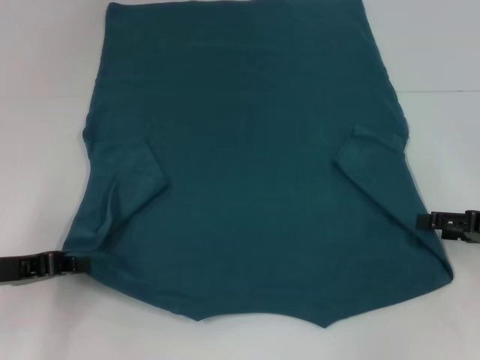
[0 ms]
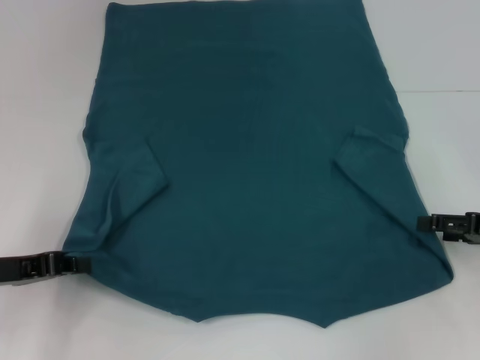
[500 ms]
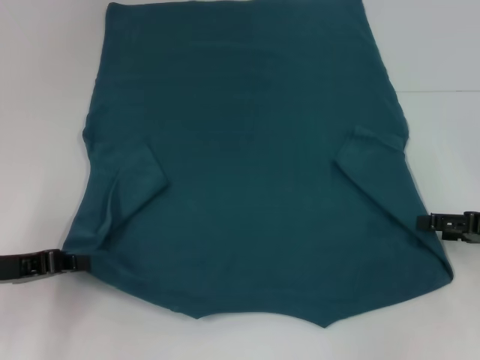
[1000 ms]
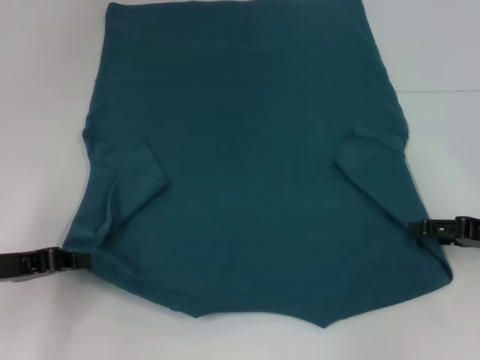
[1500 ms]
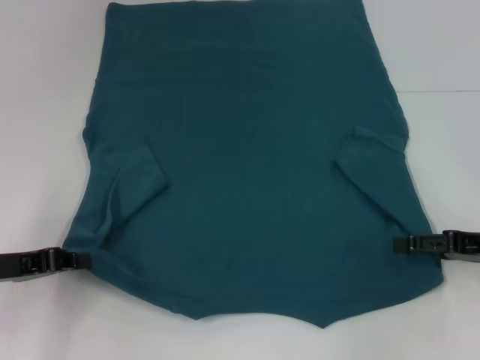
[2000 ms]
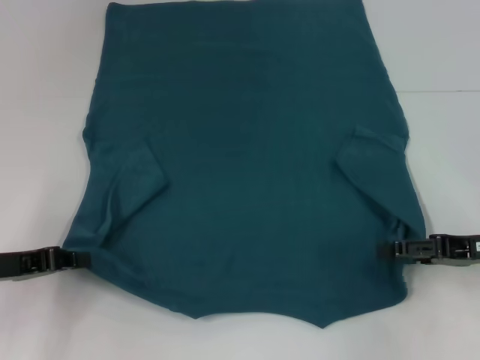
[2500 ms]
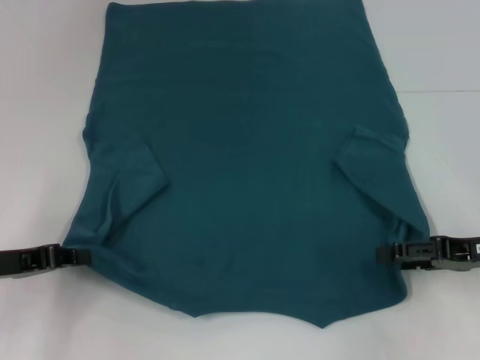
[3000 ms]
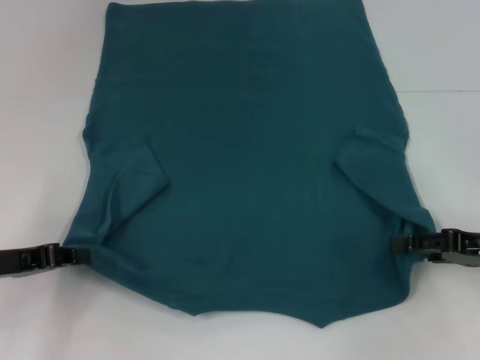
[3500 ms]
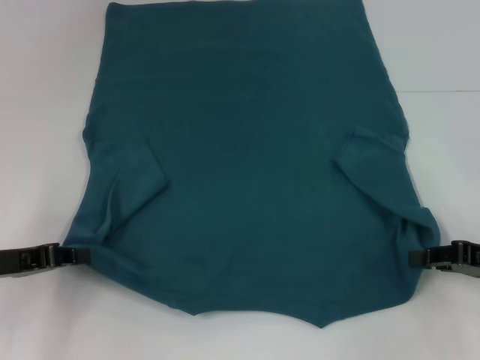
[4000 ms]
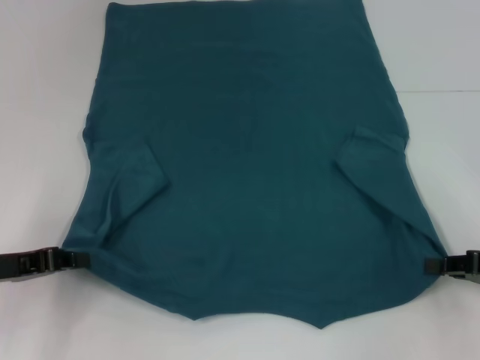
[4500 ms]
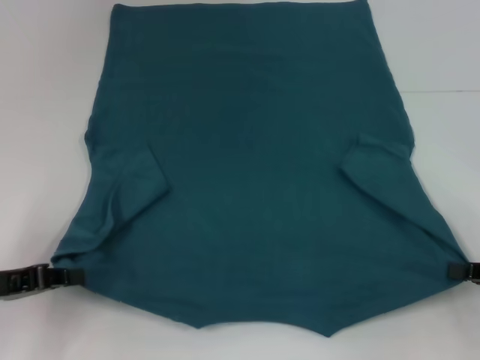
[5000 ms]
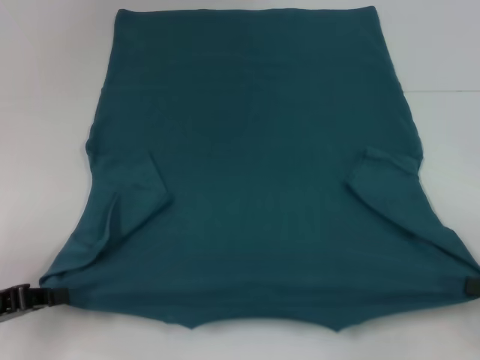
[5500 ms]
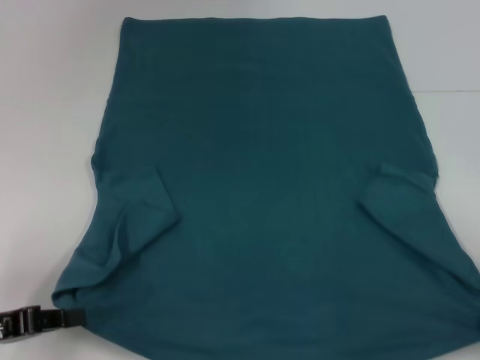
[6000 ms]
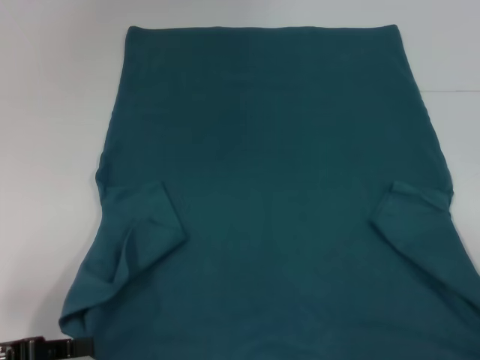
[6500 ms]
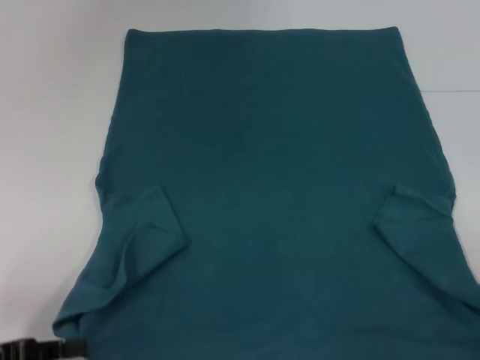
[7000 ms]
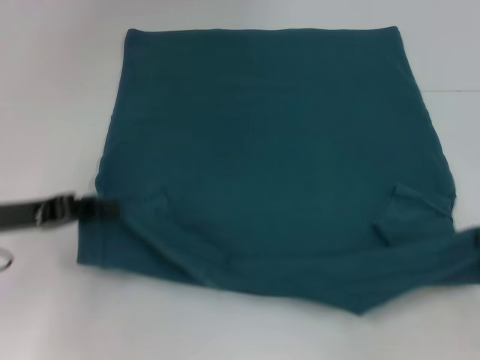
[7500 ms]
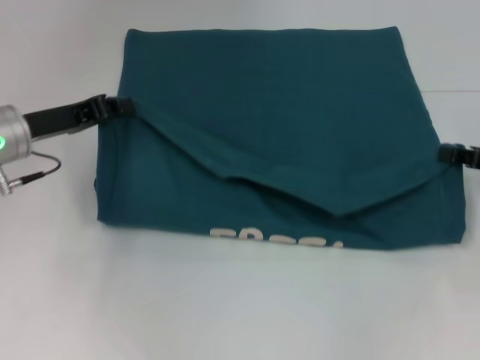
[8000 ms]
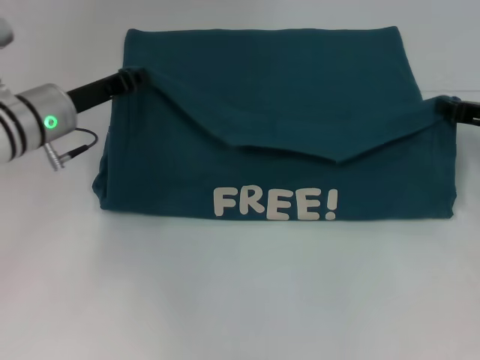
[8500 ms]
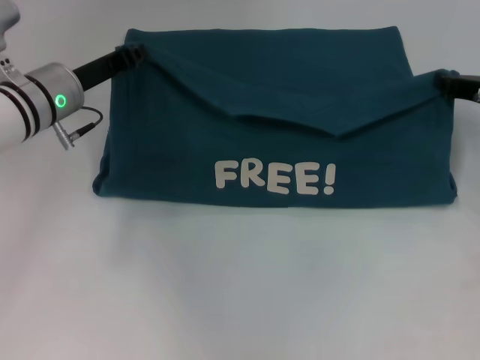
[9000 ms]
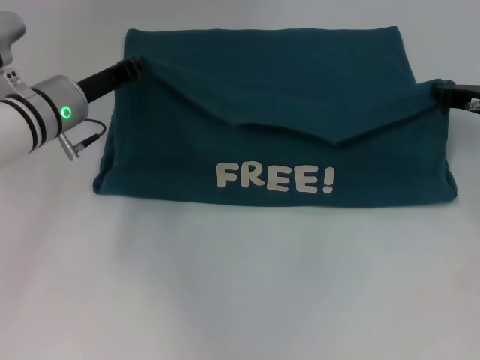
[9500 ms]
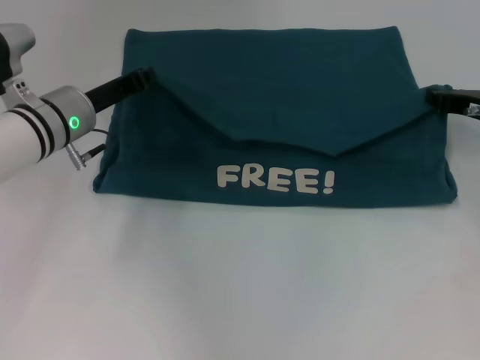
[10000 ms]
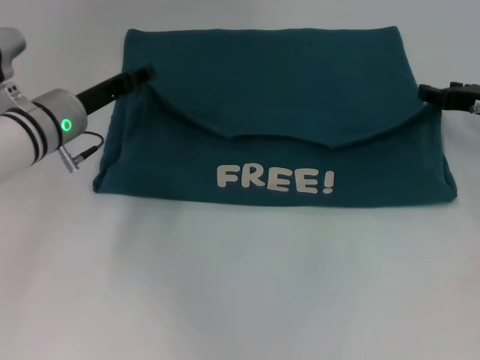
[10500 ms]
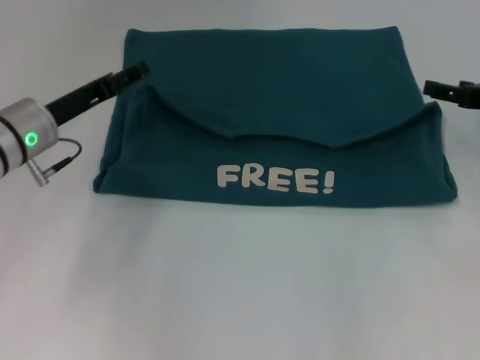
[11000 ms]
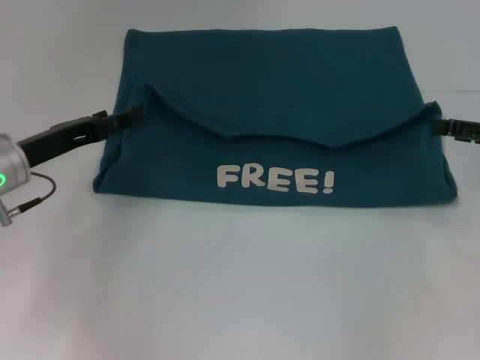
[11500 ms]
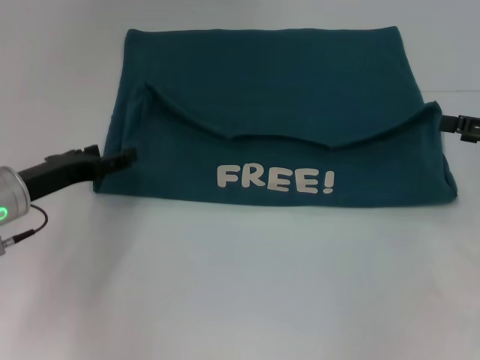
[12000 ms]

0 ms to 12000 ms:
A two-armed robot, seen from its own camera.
Step, 0 ms to 4000 ms: Grab the bottom right corner with your right hand.
Step, 4500 ms to 10500 ms: Fold the clothes to the left.
Step, 4500 ms to 10500 ms: Fold the clothes to the right.
0 ms to 2000 ms: There are only small adjustments of the grippers.
2000 ms to 4000 ms: The right gripper closes up.
4000 ms to 6000 ms: The left gripper moves backward, some 5 cm, while the right gripper heads backward and to the right, covering about 10 cm, and closes.
6000 ms to 8000 ms: The grippers both shift forward by about 15 cm.
8000 ms to 10000 ms: The right gripper shifts some 5 cm forward; the left gripper is displaced to the right by about 5 cm.
10000 ms to 12000 ms: The right gripper travels backward and to the right by roughly 10 cm, and opens up, while the left gripper is displaced backward and to the left by approximately 10 cm, and opens.

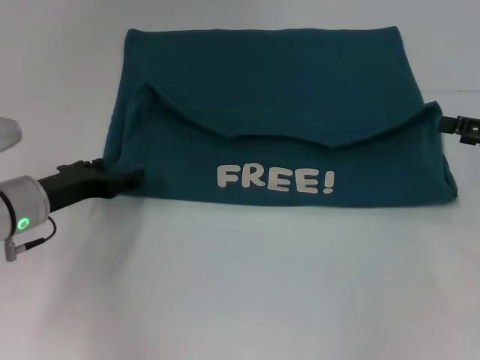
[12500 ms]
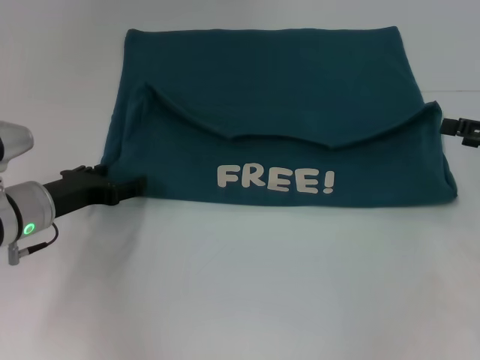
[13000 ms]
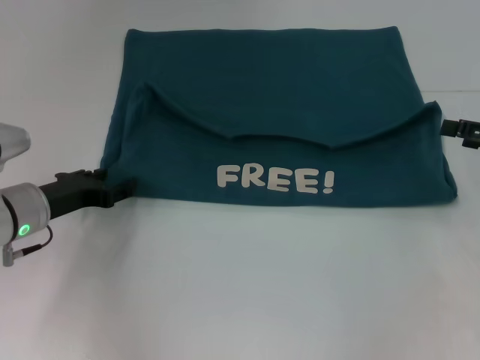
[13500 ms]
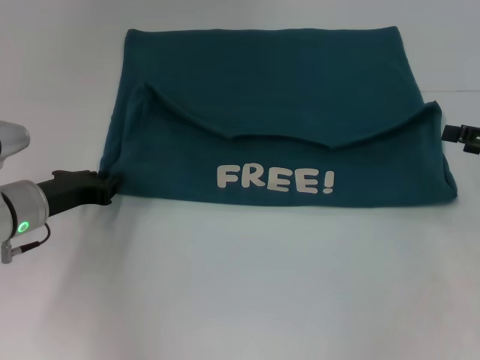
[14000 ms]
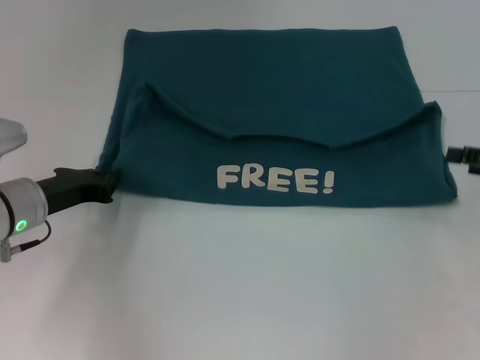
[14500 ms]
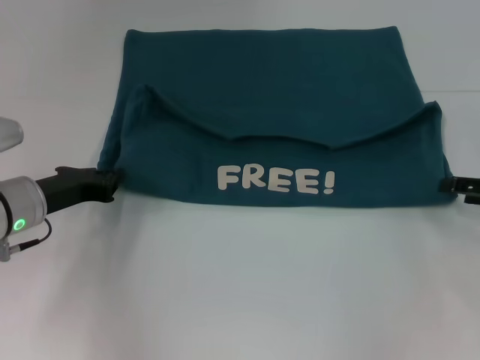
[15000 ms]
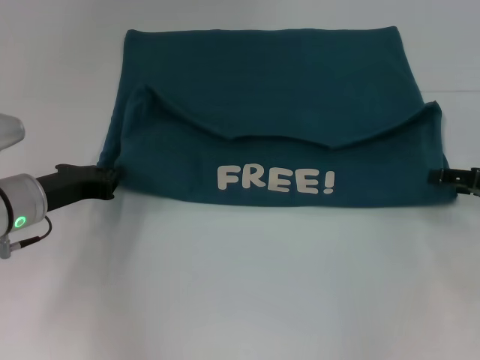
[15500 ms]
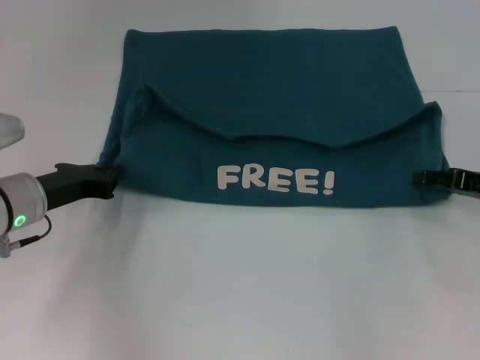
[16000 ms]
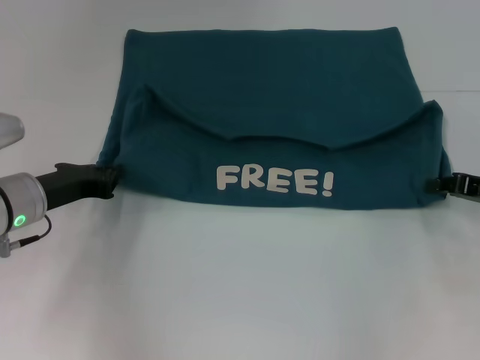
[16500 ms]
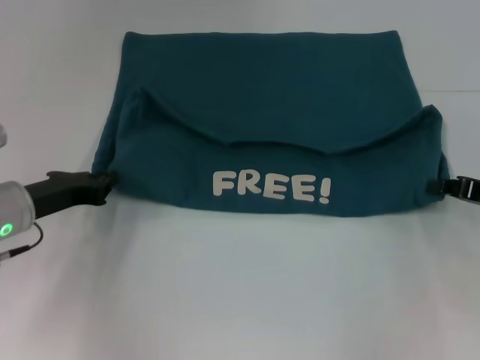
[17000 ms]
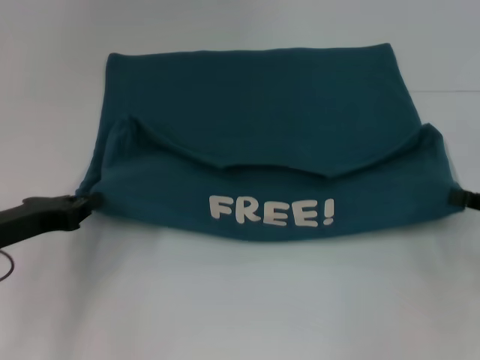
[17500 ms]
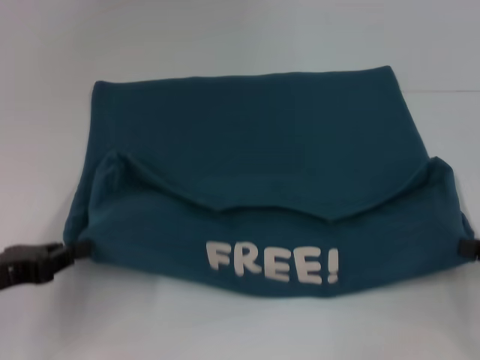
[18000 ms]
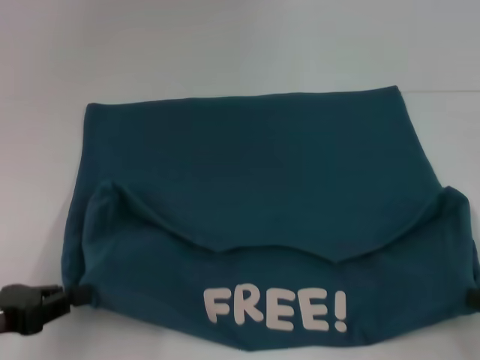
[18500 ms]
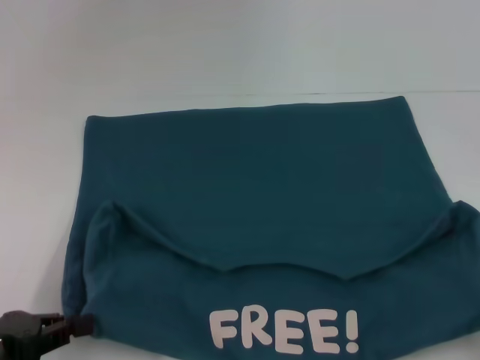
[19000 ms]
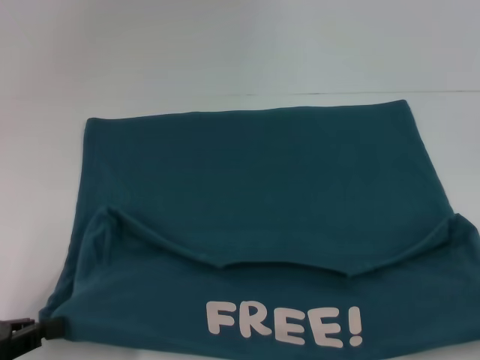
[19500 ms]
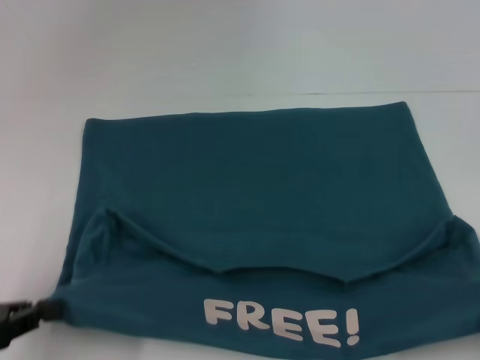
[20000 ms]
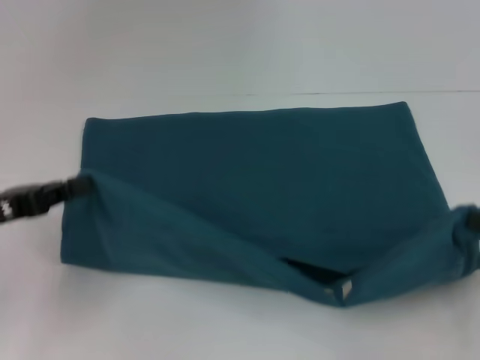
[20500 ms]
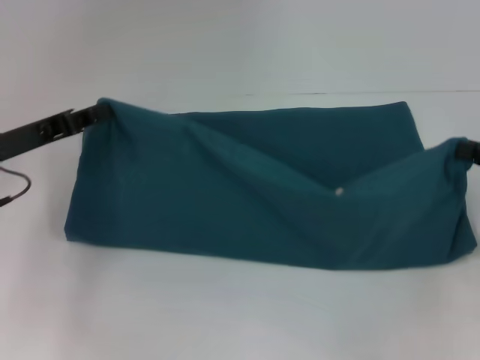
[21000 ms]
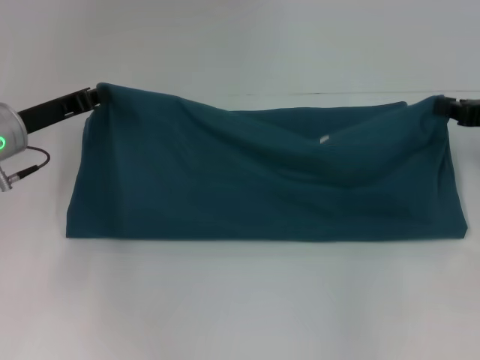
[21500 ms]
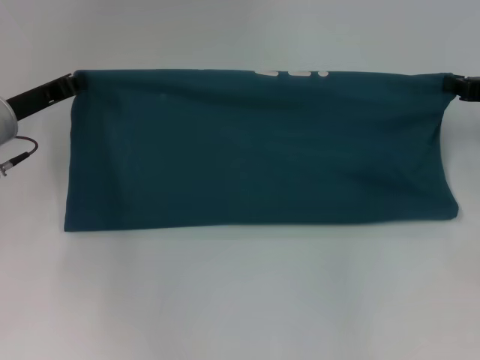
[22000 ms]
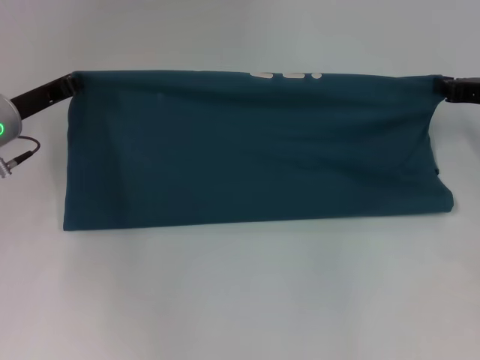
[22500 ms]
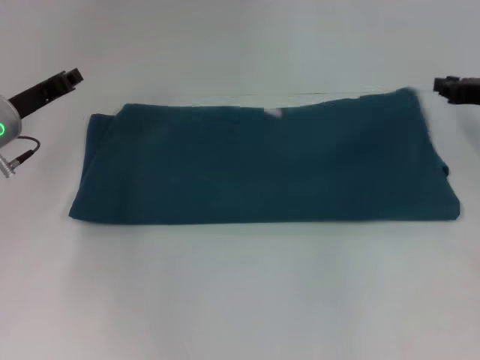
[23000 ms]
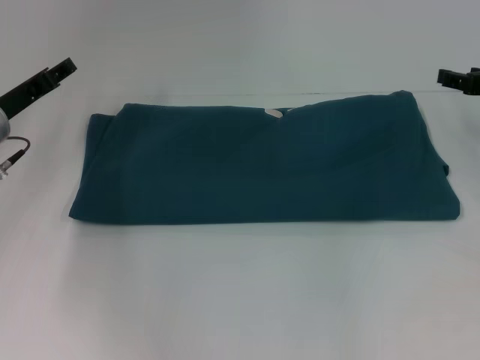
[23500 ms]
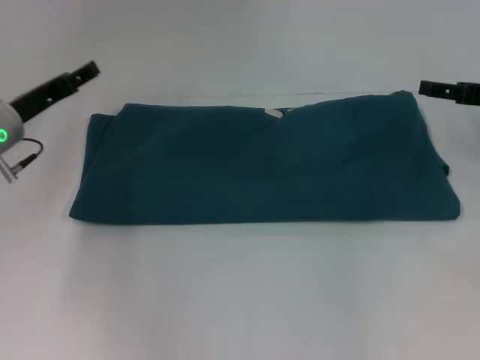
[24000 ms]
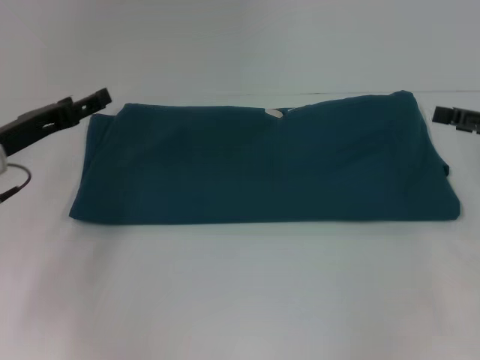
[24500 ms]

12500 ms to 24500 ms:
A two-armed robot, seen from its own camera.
Step, 12500 ms to 19000 ms: Pull the clothes with your left hand.
Step, 12500 ms to 19000 ms: Pull the clothes with your right hand.
Step, 19500 ms to 23000 ms: Fold the clothes to the right.
12500 ms to 14500 ms: The left gripper closes.
14500 ms to 16500 ms: The right gripper moves about 5 cm, and closes.
16500 ms to 18500 ms: The right gripper goes about 15 cm backward. The left gripper heads backward and to the left, covering about 15 cm.
18500 ms to 20500 ms: The right gripper moves roughly 5 cm. Meanwhile the left gripper shifts roughly 5 cm forward.
20500 ms to 22500 ms: The grippers both shift forward by roughly 15 cm.
22500 ms to 24500 ms: The left gripper shifts by about 5 cm, and opens, while the right gripper heads backward, covering approximately 5 cm, and opens up.

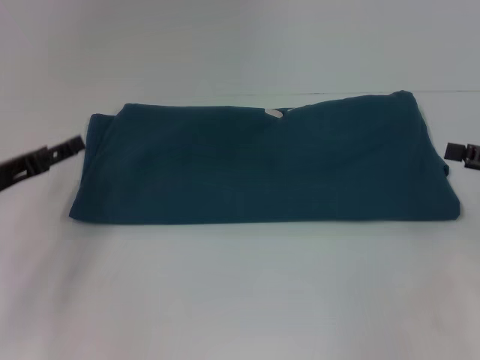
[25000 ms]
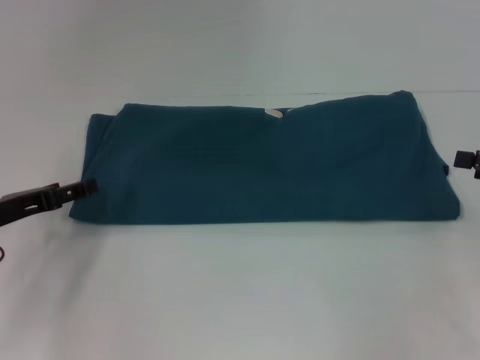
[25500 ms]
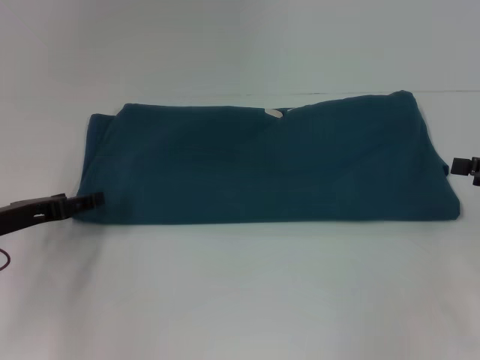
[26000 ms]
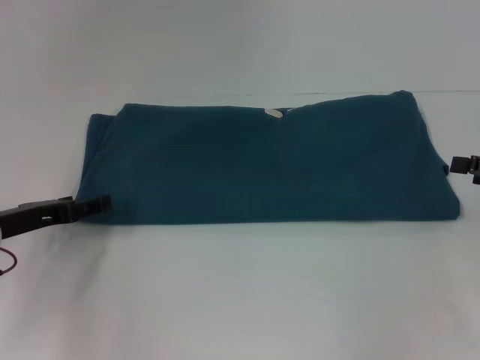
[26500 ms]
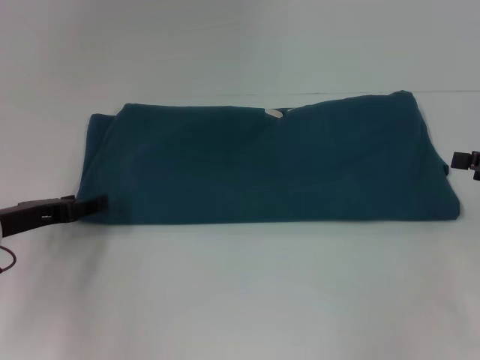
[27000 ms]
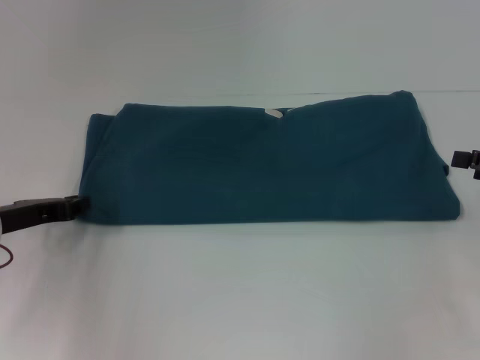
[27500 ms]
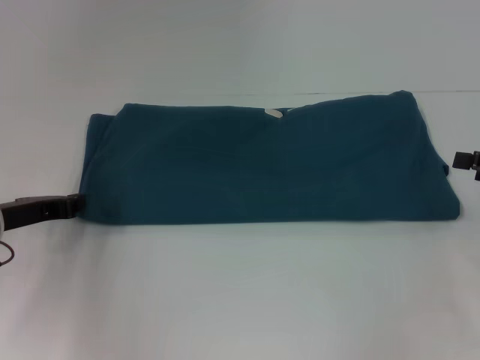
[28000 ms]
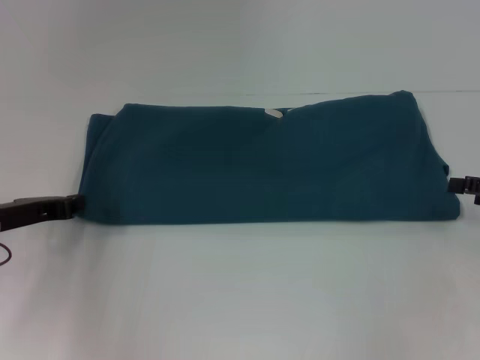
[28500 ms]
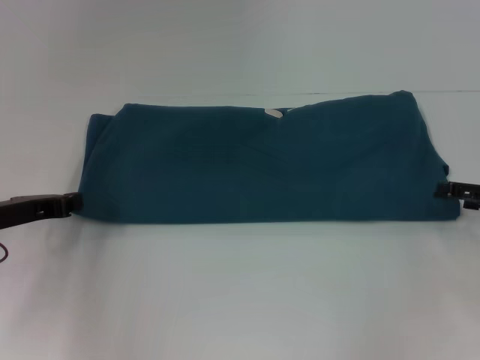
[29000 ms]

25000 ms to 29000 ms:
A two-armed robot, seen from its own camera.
25000 ms to 27000 ms: The grippers move only a little.
27000 ms to 29000 ms: The left gripper closes up.
